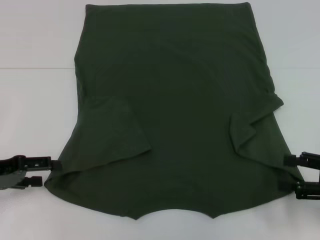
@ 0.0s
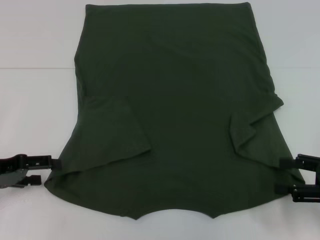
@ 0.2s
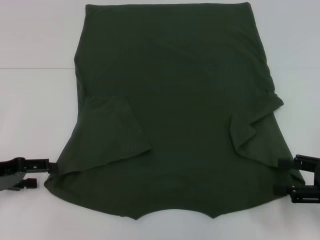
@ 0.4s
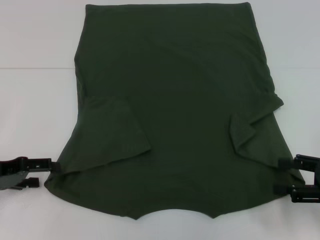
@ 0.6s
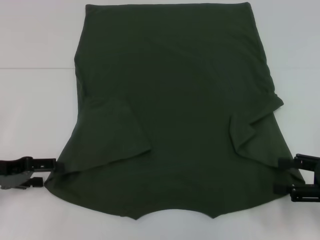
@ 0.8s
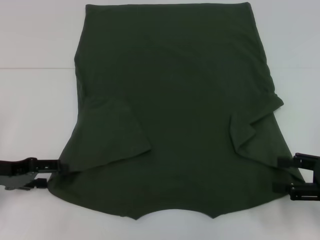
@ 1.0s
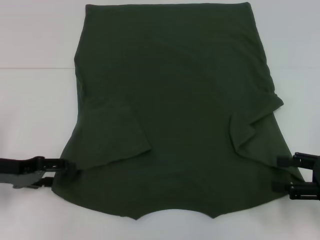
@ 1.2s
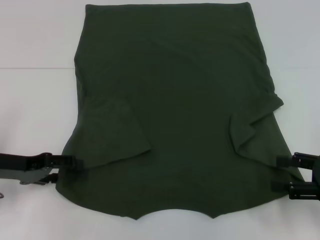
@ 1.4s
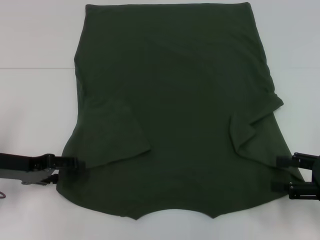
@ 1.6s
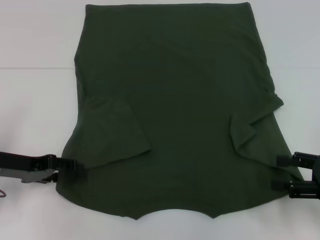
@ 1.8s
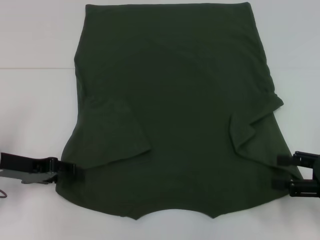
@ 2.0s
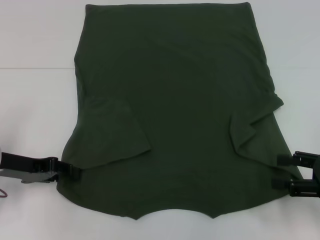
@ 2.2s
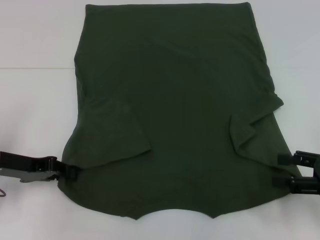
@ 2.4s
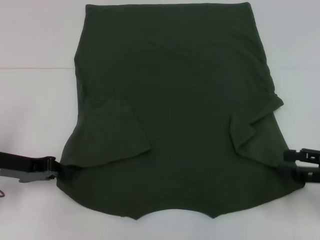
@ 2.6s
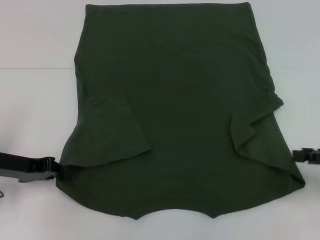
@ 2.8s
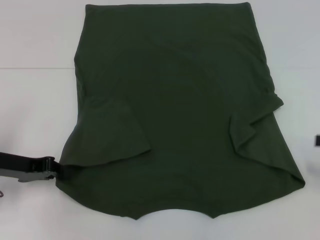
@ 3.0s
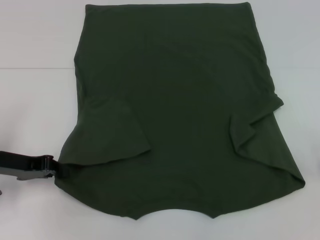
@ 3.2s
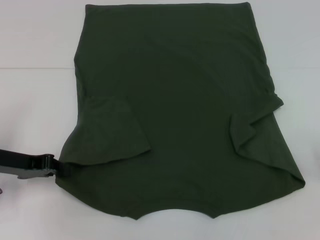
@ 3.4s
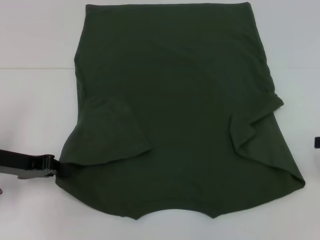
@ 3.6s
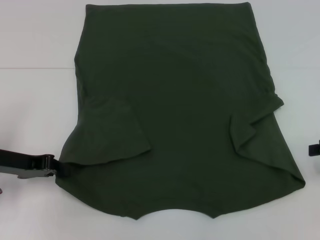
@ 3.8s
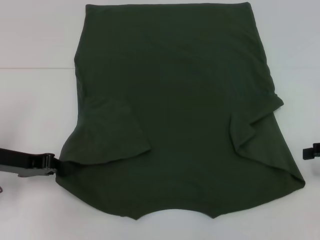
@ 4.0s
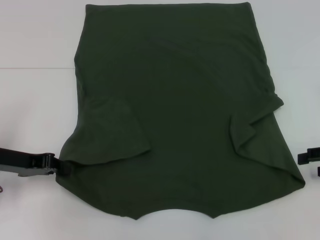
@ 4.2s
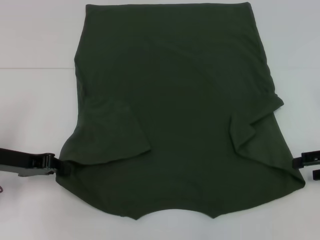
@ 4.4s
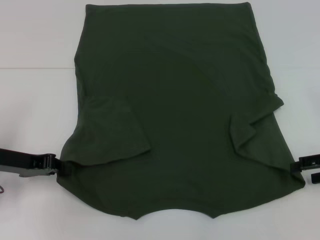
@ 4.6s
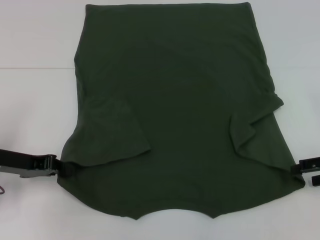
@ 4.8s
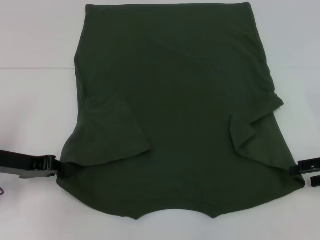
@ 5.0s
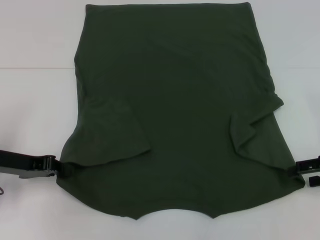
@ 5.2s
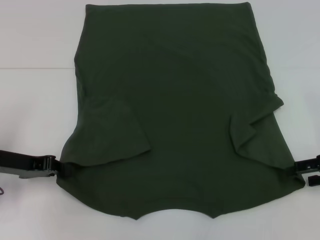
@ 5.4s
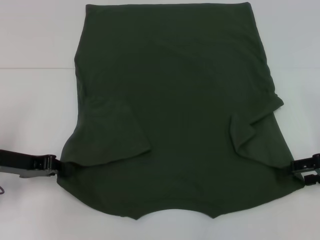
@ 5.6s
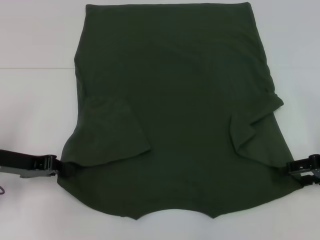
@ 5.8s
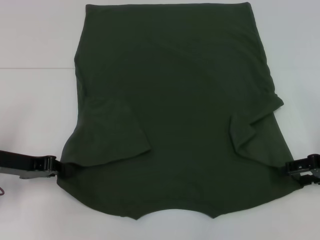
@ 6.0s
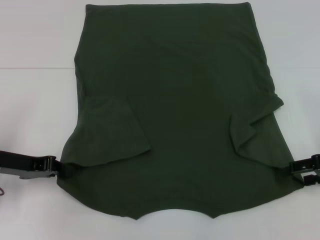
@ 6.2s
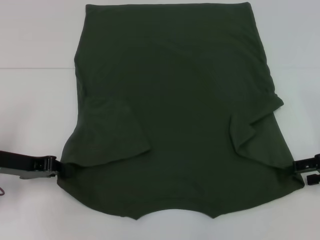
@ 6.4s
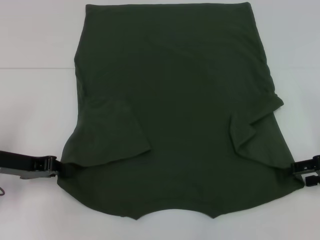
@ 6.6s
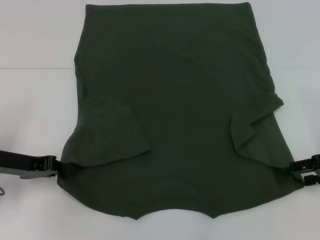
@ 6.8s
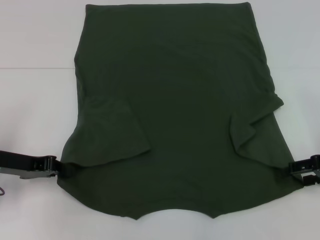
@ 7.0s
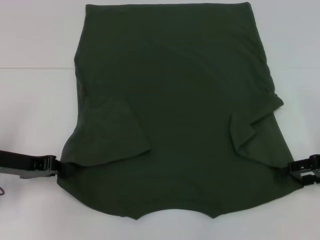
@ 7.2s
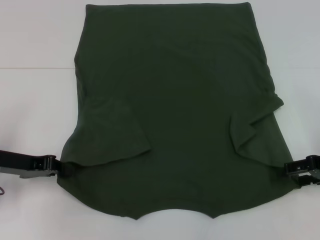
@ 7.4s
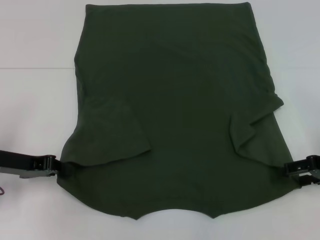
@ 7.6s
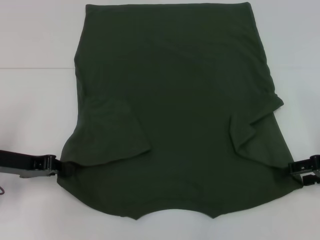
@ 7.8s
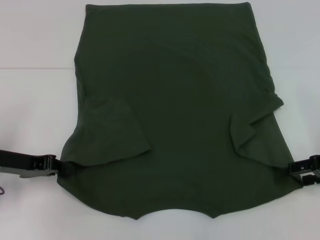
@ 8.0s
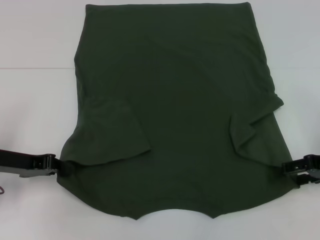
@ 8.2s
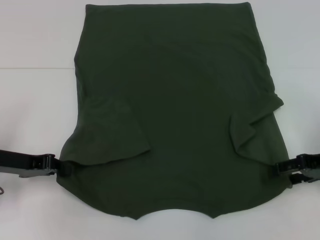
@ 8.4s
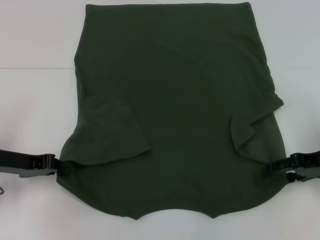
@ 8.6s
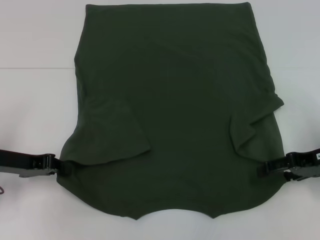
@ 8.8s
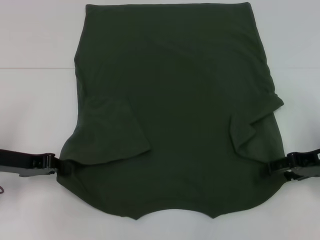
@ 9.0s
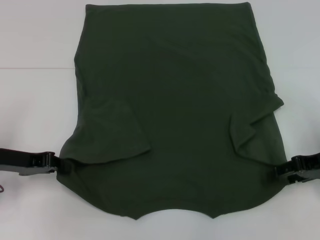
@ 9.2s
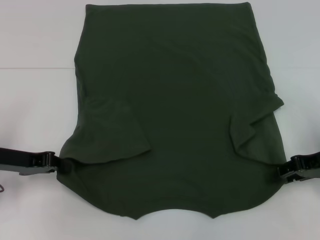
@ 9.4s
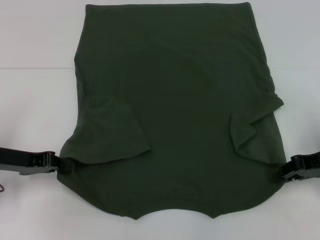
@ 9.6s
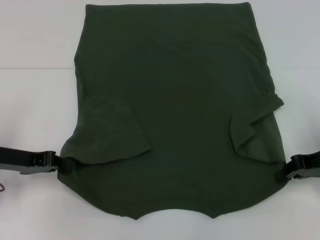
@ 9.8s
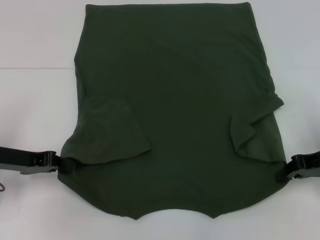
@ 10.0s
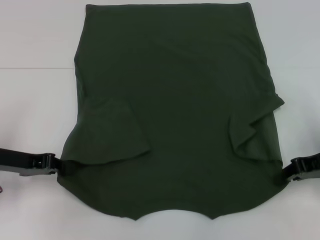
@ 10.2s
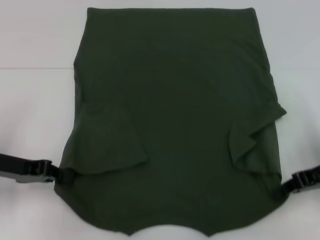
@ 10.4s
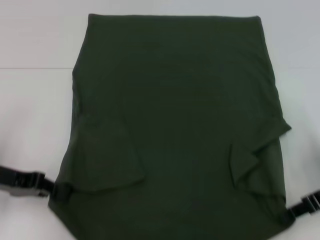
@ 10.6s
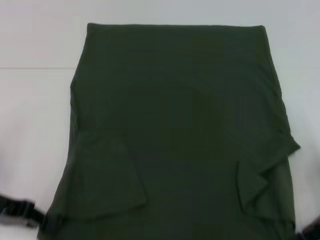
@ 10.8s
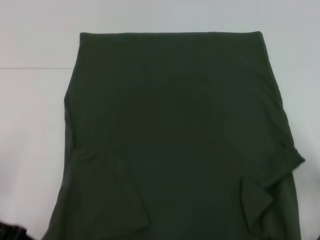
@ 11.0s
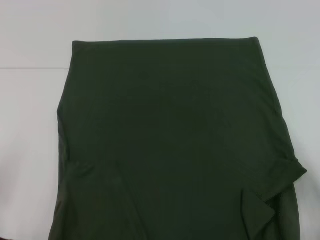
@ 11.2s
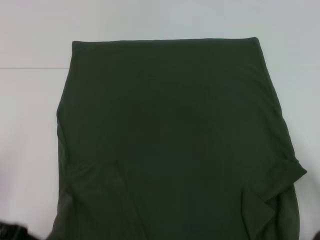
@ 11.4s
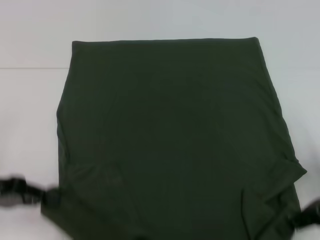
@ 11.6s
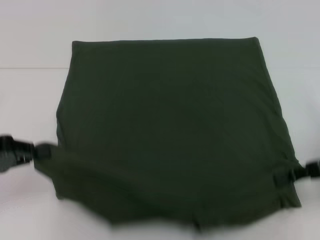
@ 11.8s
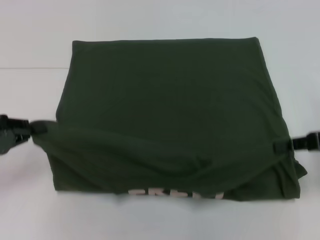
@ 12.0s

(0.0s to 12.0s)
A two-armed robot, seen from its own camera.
Step, 0.0s - 2.4s: Grab the bottom left corner with your left hand.
Step, 2.6s - 9.6s: Grab the bottom right corner with your right hand.
0.0s - 1.6s: The grippers stay close to where they were, moving slightly.
1.6s - 3.0s: The left gripper closes, while the right gripper is displaced to the right by roughly 5 cm.
3.0s - 4.4s: The right gripper ends up some 5 cm from where it was.
4.4s - 6.0s: The grippers make only small movements.
6.0s - 7.6s: Both grippers stay about where they are.
7.6s - 9.0s: The grippers make only small movements.
9.0s - 10.4s: The right gripper closes.
10.4s - 12.0s: The left gripper changes place by approximately 5 cm.

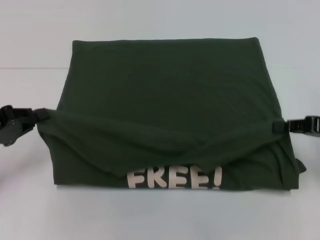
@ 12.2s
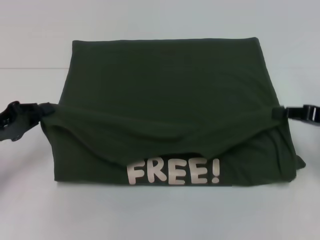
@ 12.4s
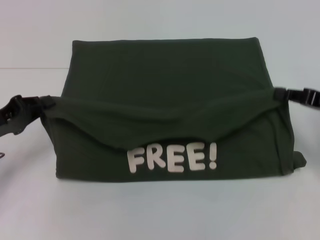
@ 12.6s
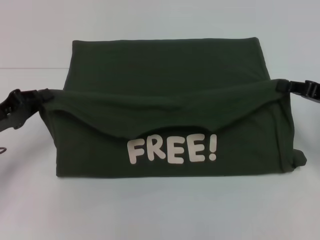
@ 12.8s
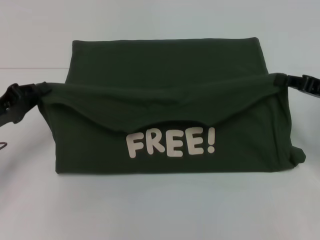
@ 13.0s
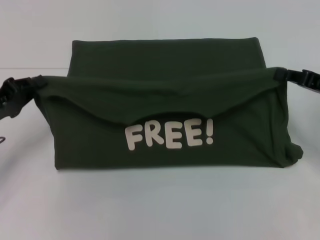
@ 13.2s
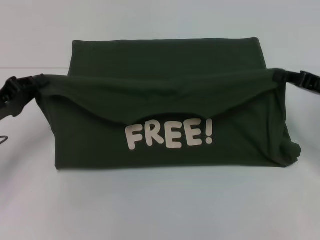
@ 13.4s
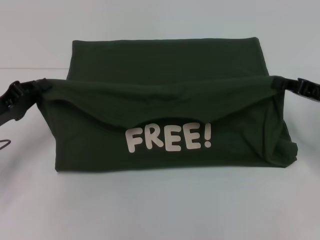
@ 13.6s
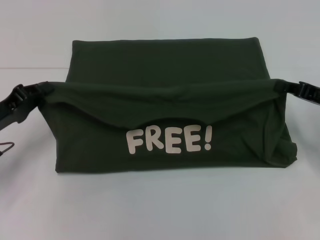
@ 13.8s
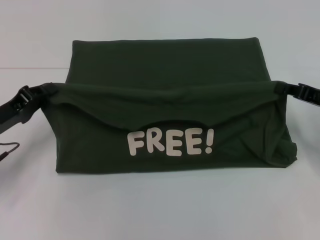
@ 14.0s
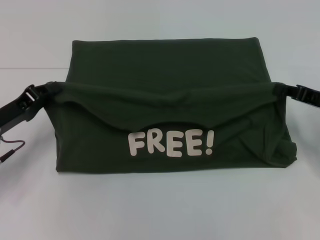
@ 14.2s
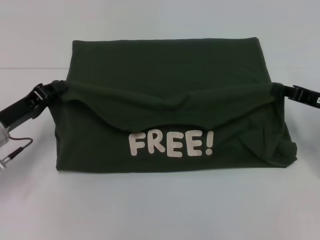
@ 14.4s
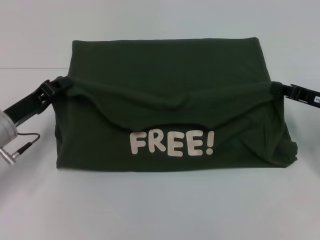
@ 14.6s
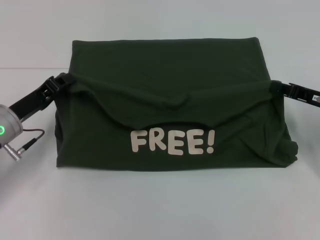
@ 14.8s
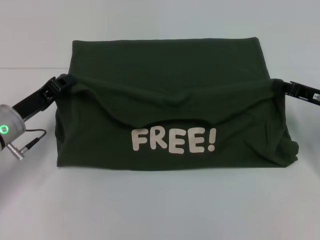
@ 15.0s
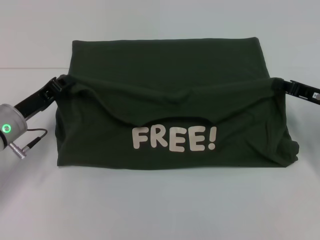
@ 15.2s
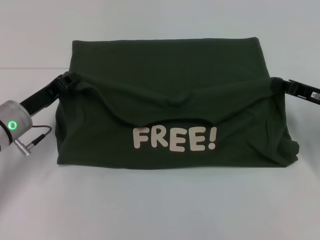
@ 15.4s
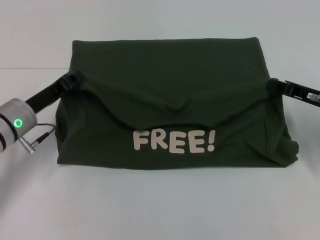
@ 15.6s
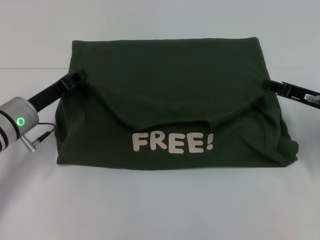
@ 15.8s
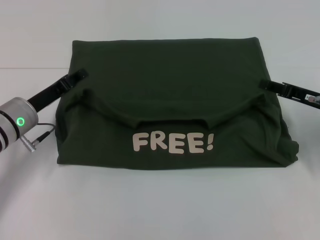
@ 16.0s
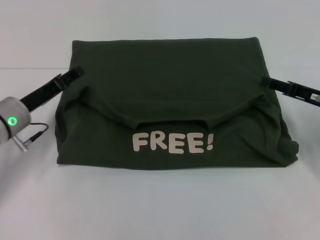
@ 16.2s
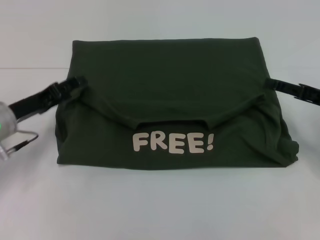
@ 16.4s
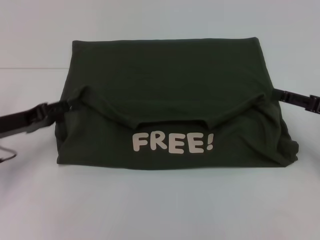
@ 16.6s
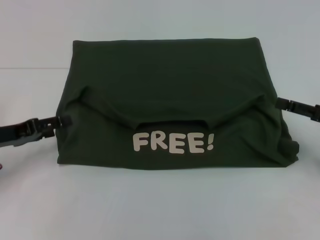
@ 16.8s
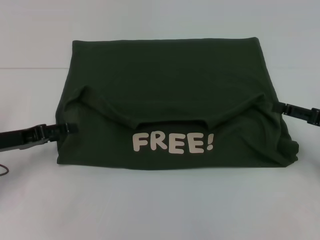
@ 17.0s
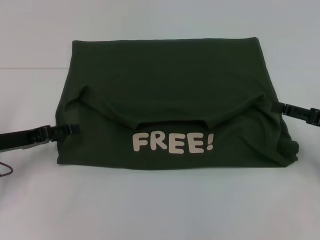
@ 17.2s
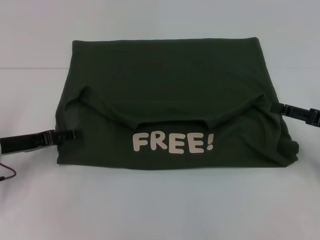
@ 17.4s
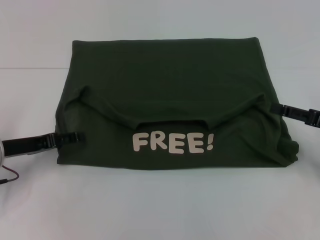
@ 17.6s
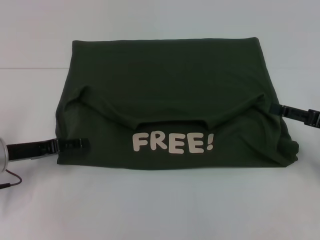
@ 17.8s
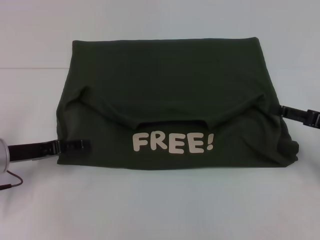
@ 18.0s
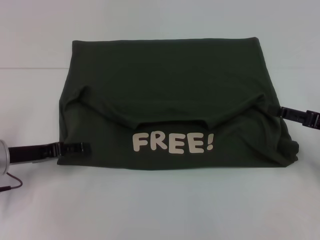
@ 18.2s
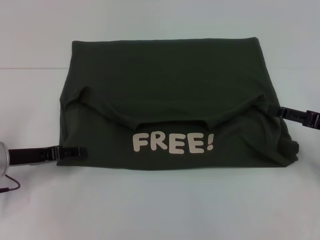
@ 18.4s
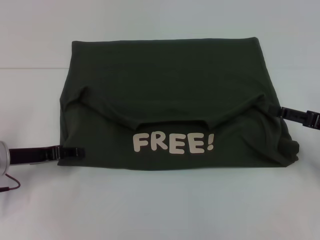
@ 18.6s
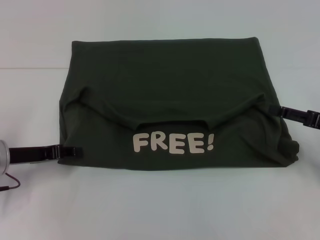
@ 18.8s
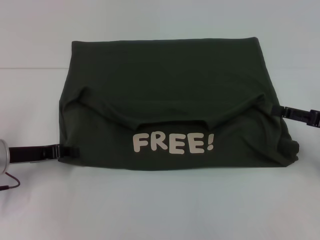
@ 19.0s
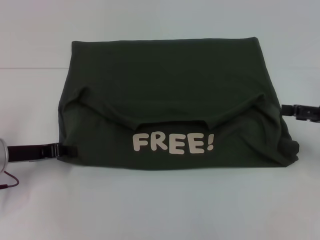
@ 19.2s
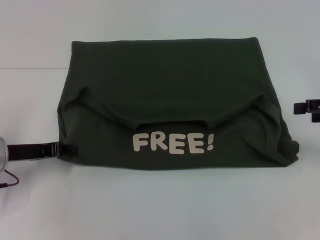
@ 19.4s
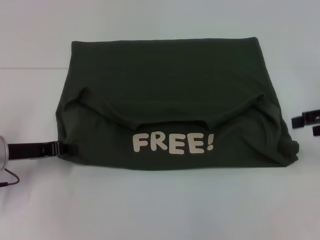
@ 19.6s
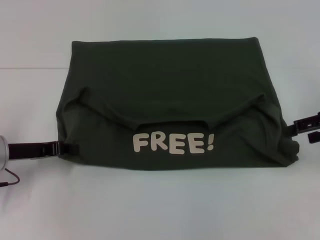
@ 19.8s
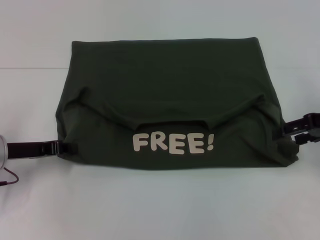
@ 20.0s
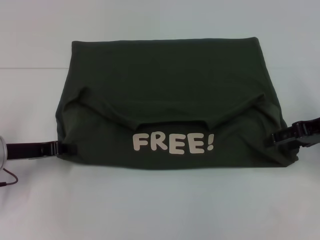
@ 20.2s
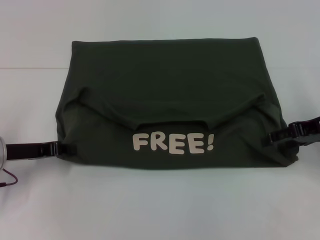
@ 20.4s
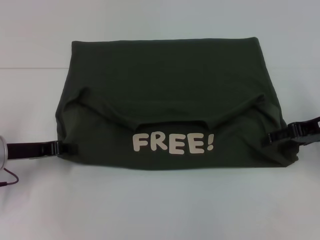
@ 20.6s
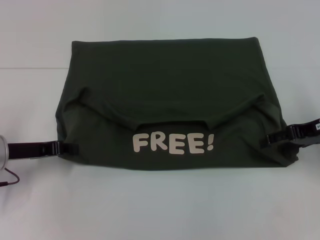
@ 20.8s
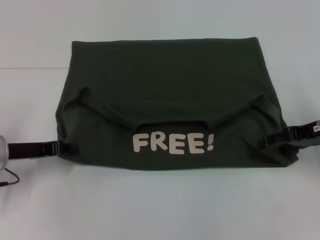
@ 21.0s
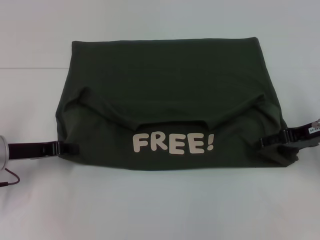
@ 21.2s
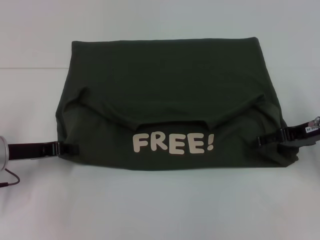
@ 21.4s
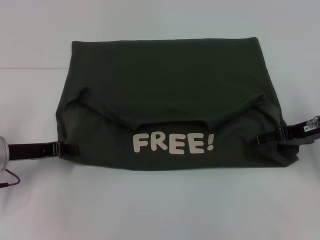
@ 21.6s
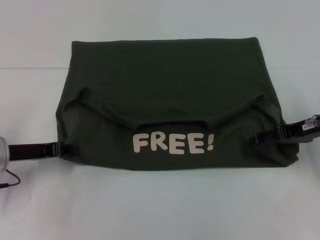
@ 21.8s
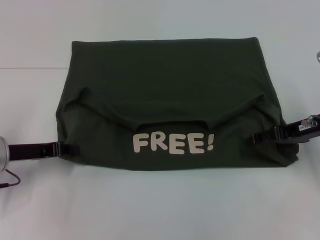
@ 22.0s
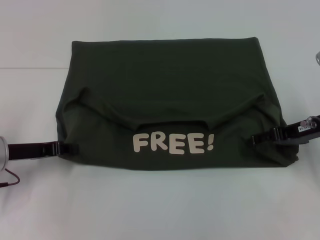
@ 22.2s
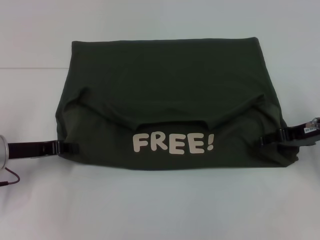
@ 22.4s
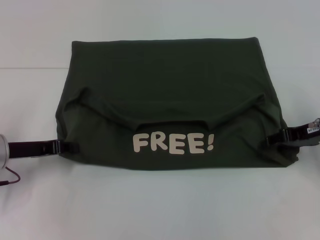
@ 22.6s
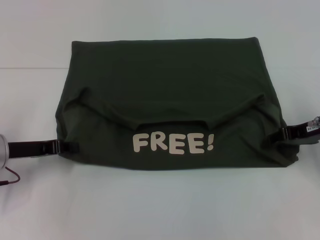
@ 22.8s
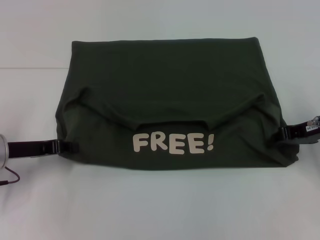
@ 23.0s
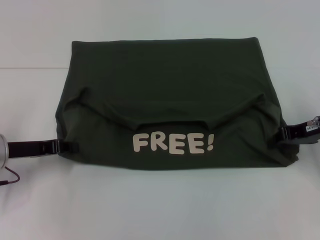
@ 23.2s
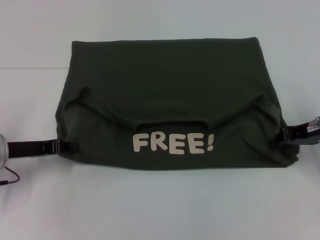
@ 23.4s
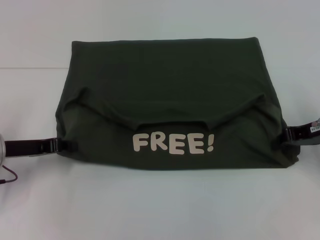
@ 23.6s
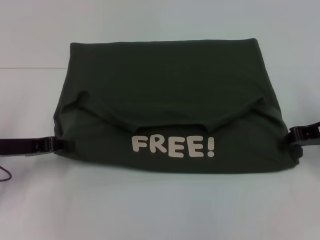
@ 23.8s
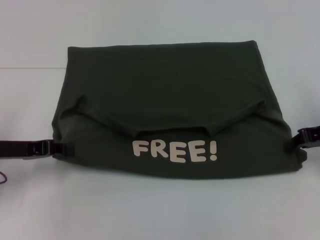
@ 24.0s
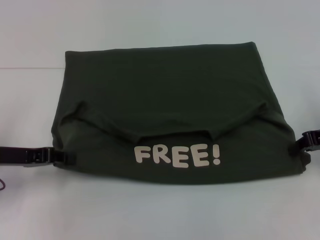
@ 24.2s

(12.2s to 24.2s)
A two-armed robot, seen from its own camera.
Step, 12.2s - 15.8s: Fold the clothes with your left hand.
Step, 12.2s - 15.8s: Fold the clothes with your right hand.
13.8s - 15.2s: The left gripper moves some 5 cm.
15.2s - 16.6s: The right gripper moves roughly 5 cm, and opens; the left gripper opens its fingers.
16.6s - 18.2s: The grippers stay close to where they were, moving slightly.
18.2s - 19.8s: The right gripper shifts some 10 cm upward, while the left gripper closes up.
19.8s - 21.2s: The right gripper shifts by approximately 5 cm.
22.6s - 24.2s: The right gripper closes up.
